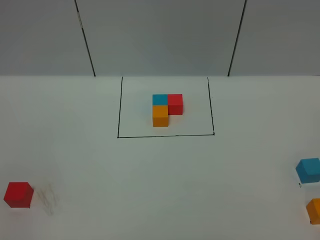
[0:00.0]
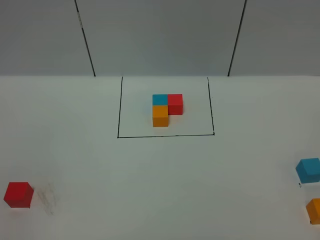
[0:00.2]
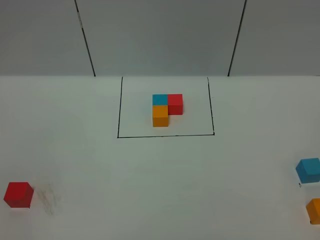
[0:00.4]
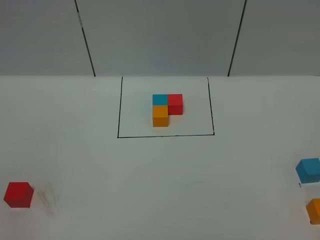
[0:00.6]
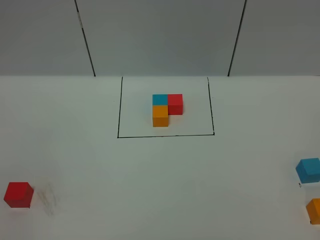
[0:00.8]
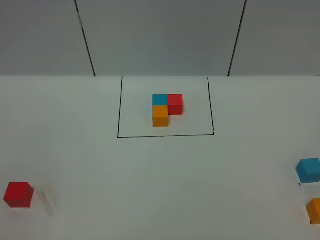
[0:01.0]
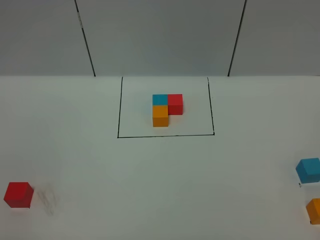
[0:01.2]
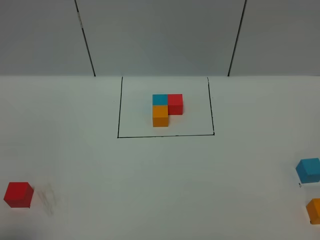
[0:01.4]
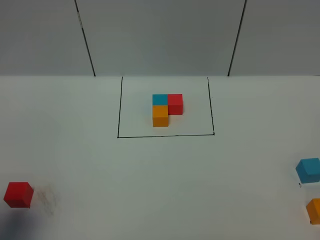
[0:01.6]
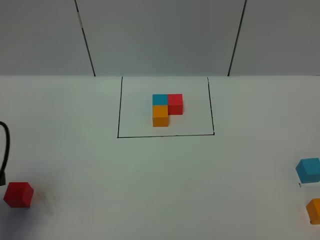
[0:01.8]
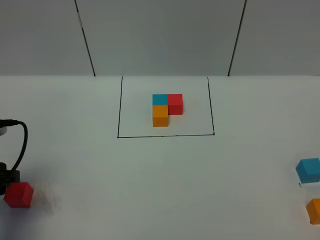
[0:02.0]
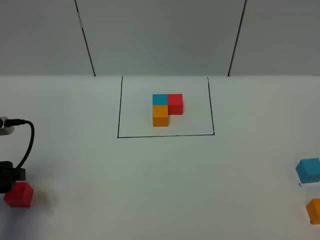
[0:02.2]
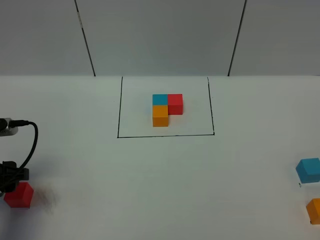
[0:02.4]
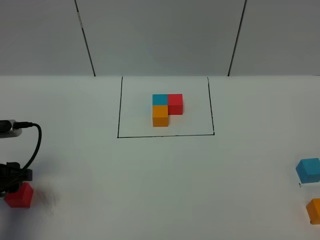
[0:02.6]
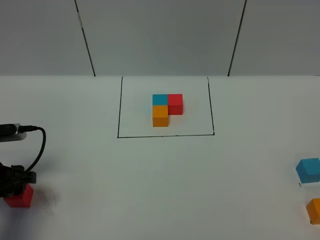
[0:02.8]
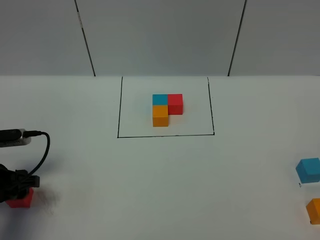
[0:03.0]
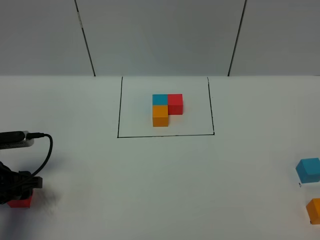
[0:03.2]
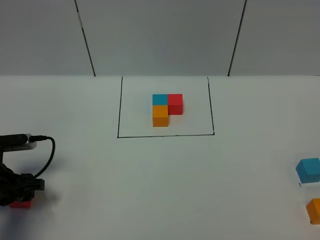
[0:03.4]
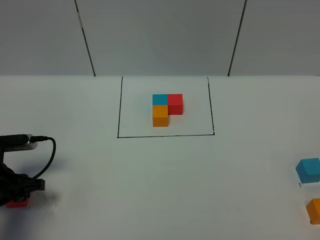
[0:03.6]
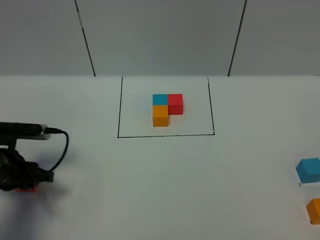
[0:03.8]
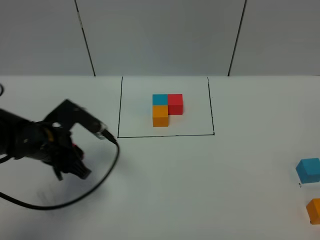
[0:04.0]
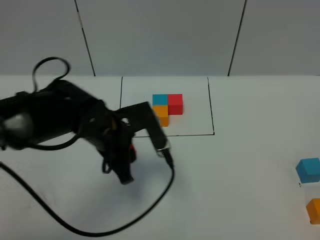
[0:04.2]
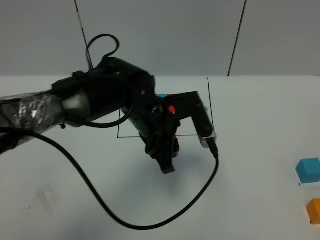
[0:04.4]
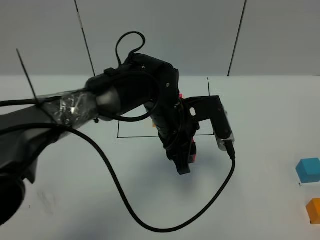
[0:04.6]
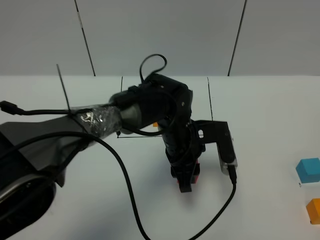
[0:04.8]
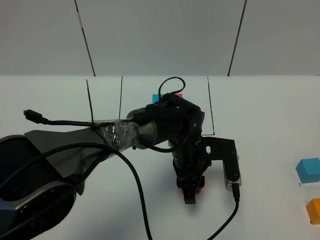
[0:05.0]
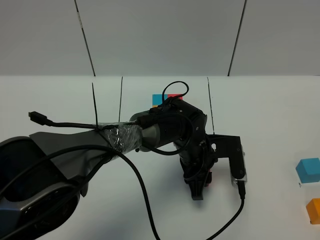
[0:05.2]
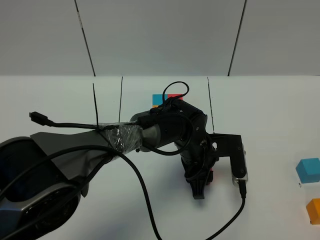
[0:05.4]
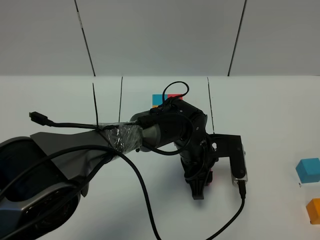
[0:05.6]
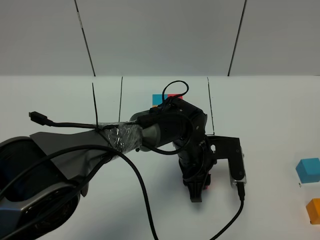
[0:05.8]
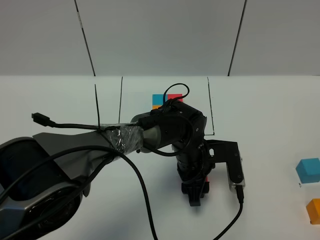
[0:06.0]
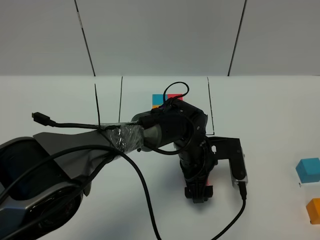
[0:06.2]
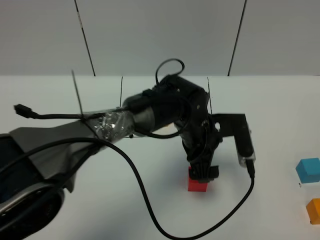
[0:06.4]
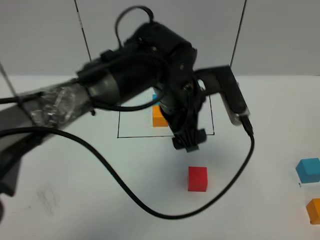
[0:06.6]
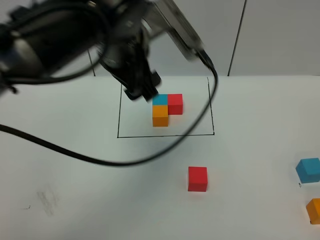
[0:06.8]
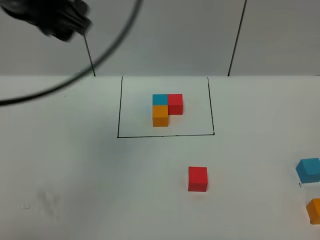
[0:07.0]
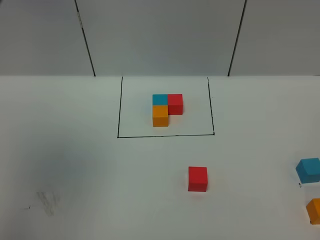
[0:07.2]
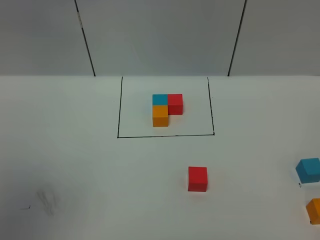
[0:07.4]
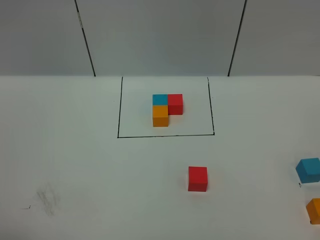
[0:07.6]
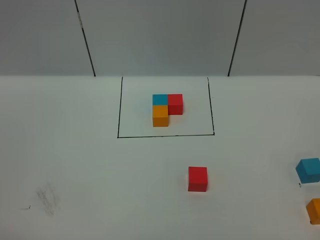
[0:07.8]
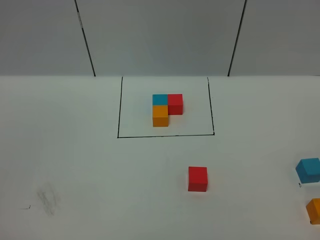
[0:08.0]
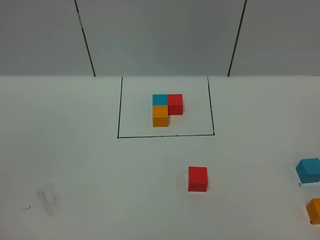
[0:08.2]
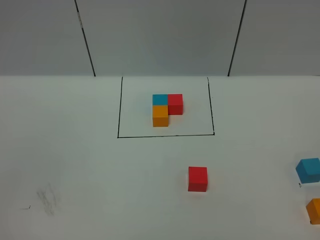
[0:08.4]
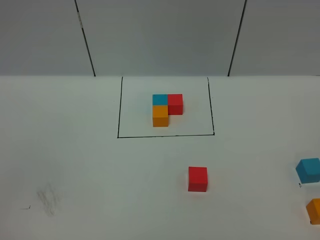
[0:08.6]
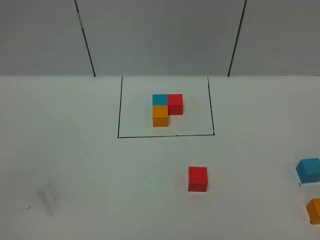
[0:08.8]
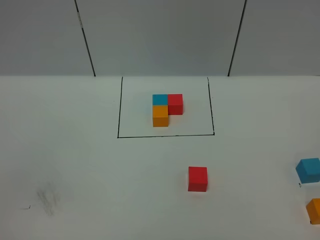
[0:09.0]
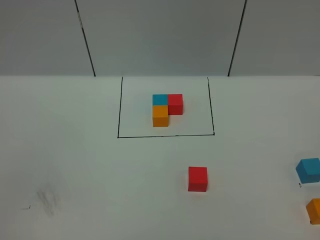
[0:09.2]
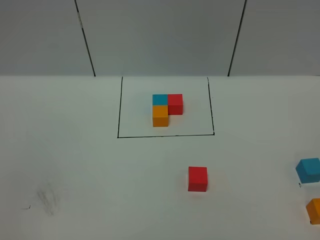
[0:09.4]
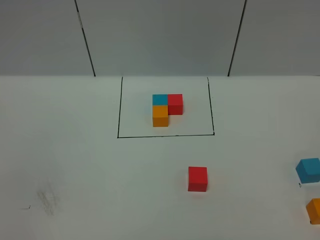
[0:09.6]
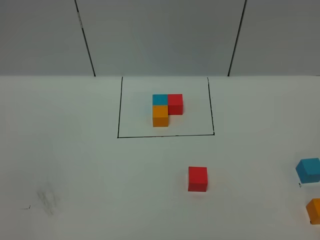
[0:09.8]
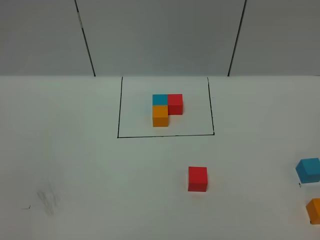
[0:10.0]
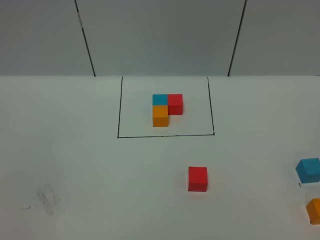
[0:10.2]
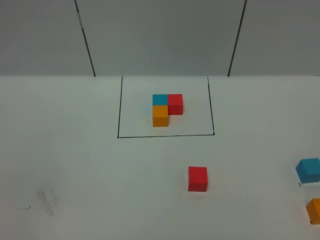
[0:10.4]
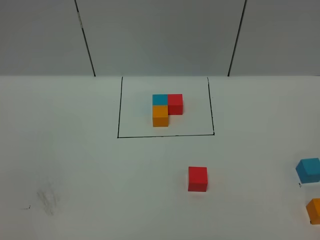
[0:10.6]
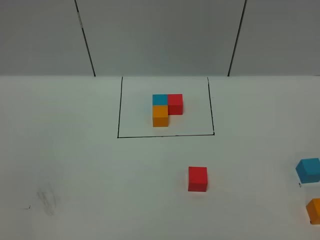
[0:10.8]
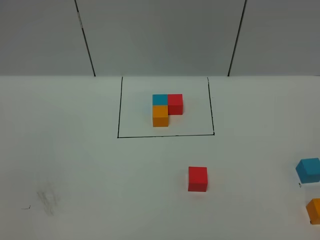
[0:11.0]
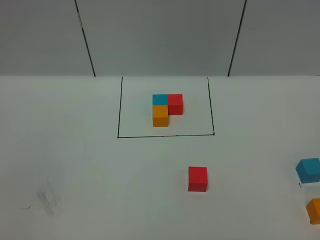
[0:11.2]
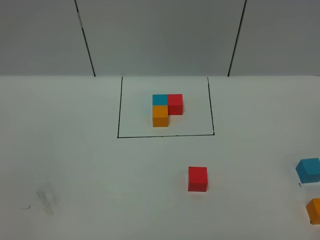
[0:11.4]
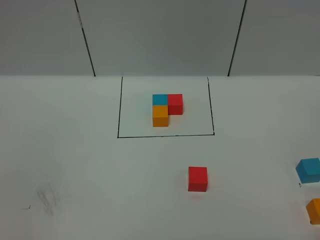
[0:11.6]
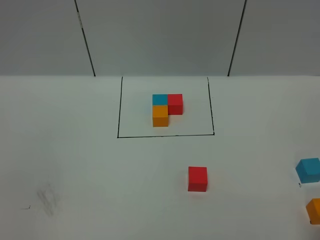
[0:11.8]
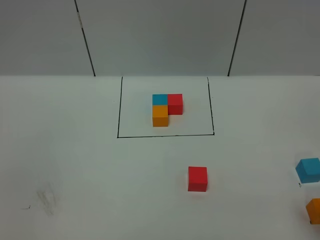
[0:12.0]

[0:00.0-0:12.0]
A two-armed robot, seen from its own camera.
Task of the whole recording: According to the building block template in front, assemble the scattered blocks together.
Step, 0:01.8 to 0:06.4: Put the red cube in the center of the table.
0:00.0 to 0:01.6: The left gripper is displaced forward by some 15 cm.
0:01.6 to 0:03.0: The left gripper is displaced downward and forward by about 20 cm.
0:03.0 to 0:04.4: The left gripper is displaced to the right by roughly 30 cm, and closes its fingers.
0:04.4 to 0:06.0: The left gripper moves downward and to the right, approximately 15 cm, and opens up.
0:06.0 to 0:07.6: The left gripper travels upward, to the left and backward by about 60 cm, and opens up.

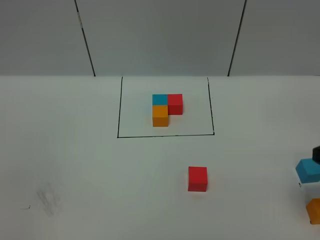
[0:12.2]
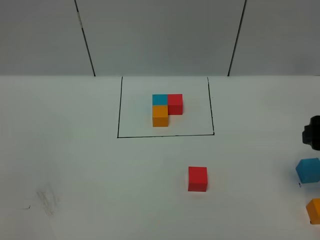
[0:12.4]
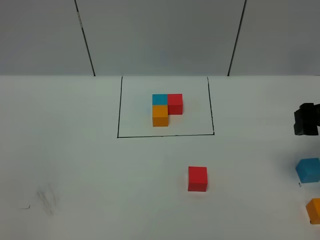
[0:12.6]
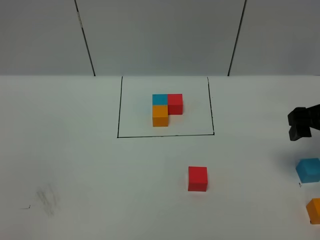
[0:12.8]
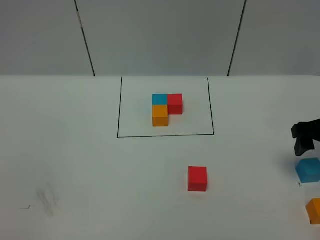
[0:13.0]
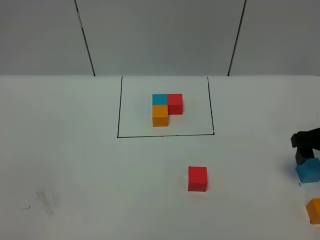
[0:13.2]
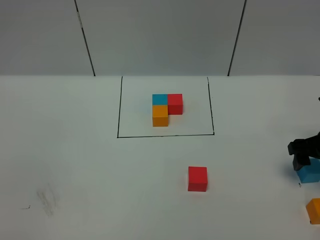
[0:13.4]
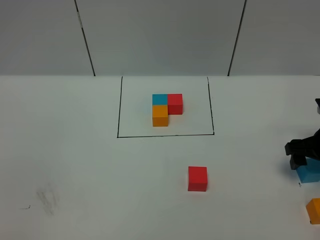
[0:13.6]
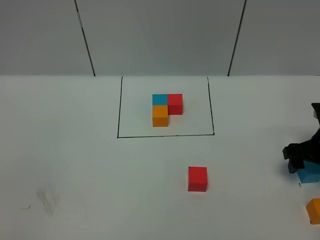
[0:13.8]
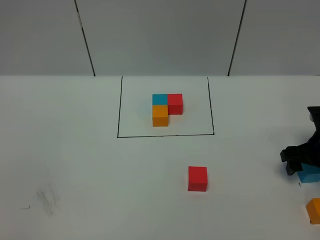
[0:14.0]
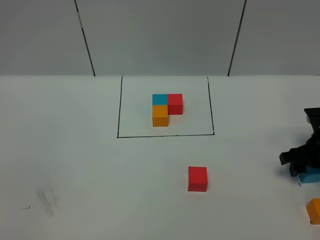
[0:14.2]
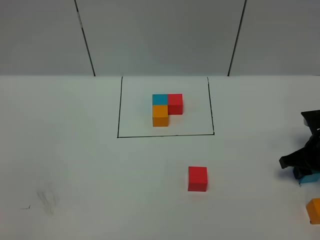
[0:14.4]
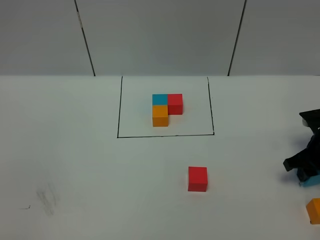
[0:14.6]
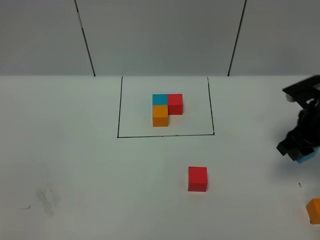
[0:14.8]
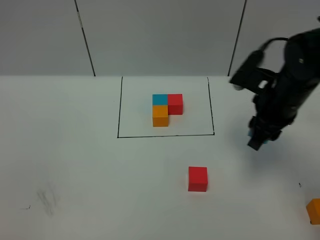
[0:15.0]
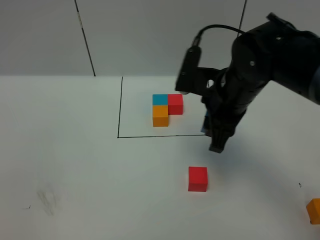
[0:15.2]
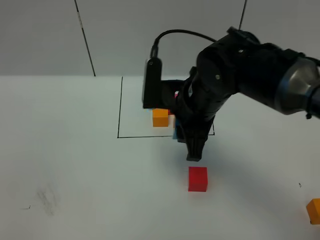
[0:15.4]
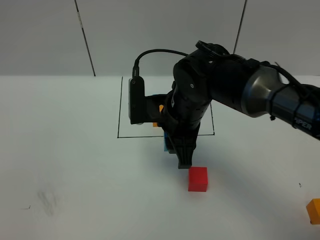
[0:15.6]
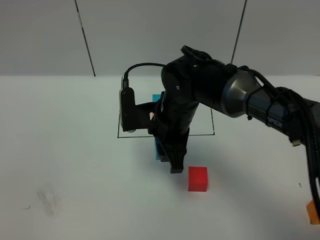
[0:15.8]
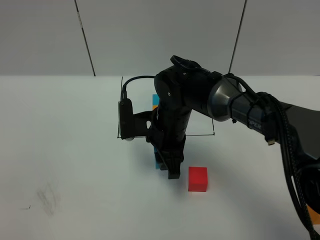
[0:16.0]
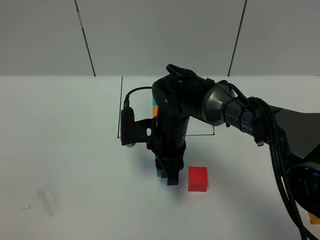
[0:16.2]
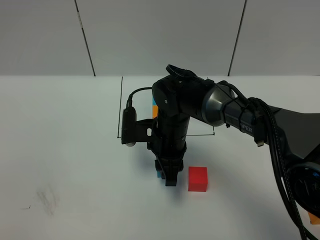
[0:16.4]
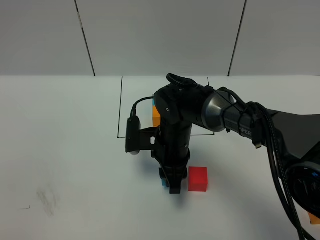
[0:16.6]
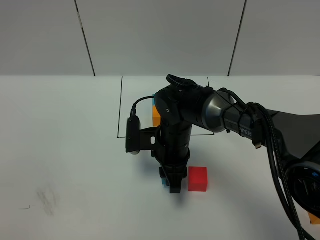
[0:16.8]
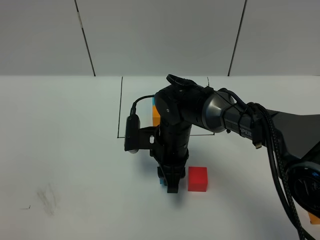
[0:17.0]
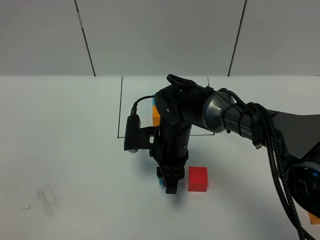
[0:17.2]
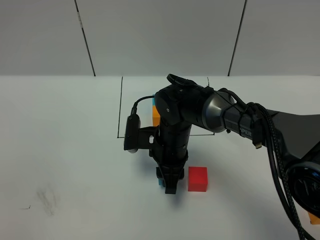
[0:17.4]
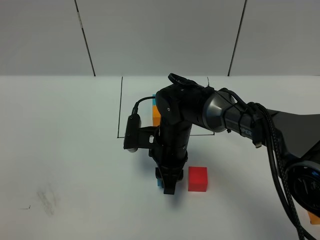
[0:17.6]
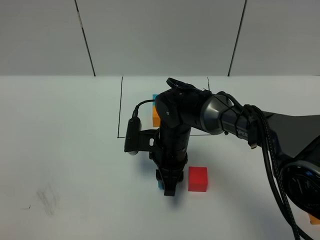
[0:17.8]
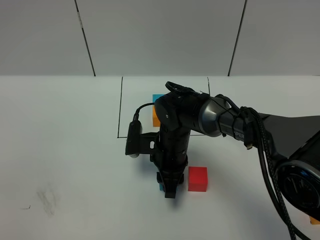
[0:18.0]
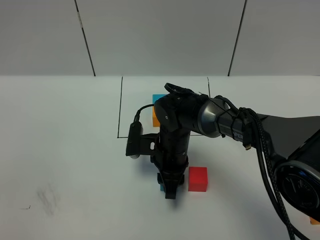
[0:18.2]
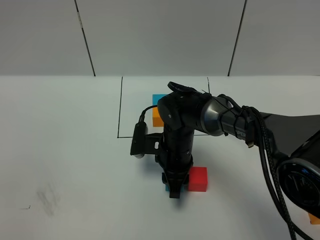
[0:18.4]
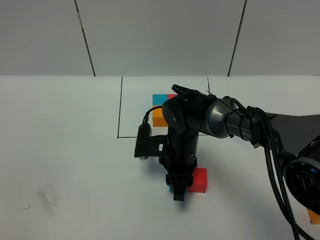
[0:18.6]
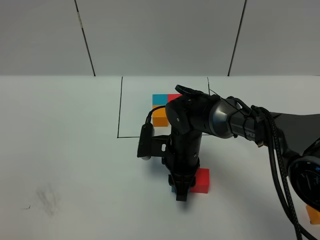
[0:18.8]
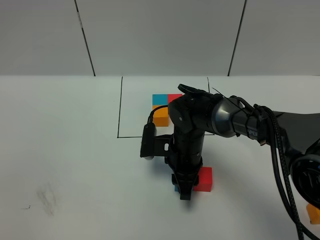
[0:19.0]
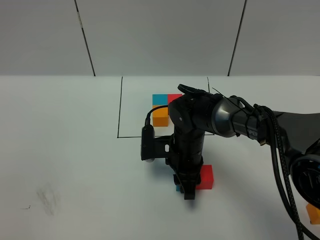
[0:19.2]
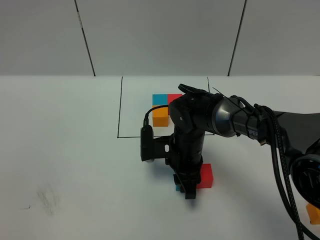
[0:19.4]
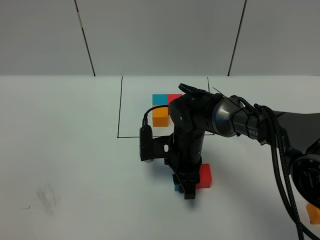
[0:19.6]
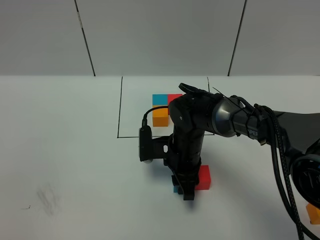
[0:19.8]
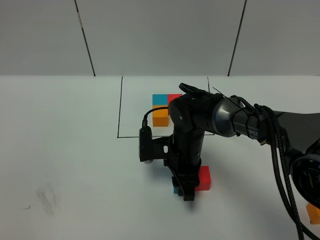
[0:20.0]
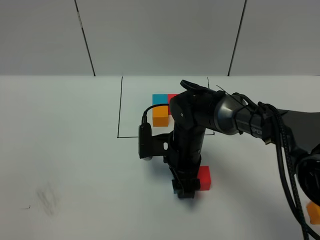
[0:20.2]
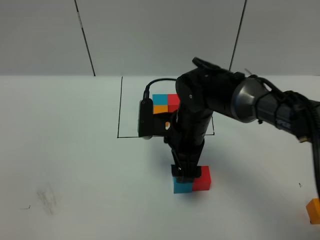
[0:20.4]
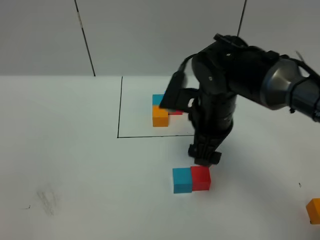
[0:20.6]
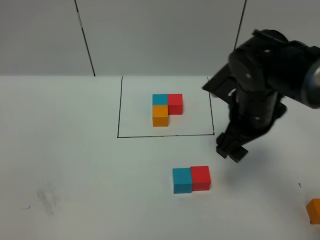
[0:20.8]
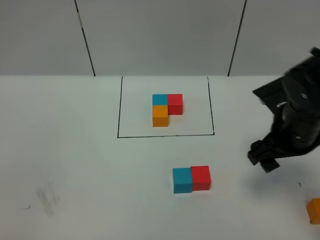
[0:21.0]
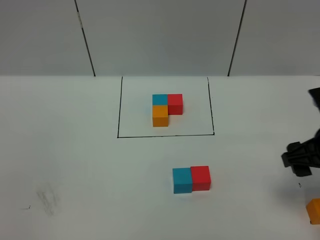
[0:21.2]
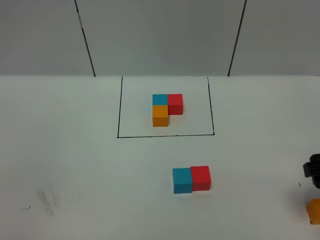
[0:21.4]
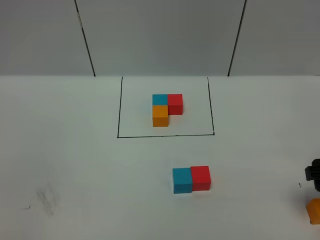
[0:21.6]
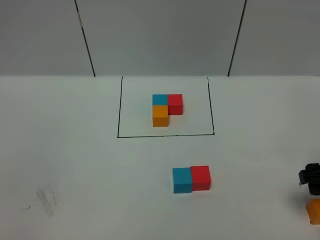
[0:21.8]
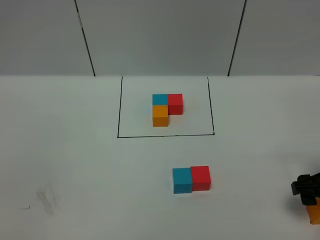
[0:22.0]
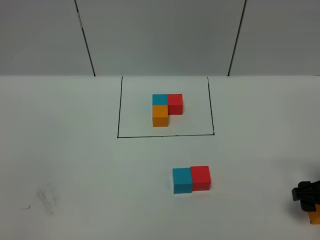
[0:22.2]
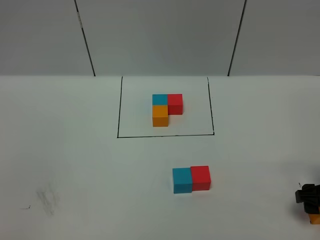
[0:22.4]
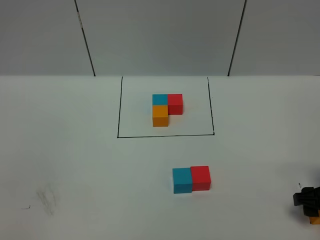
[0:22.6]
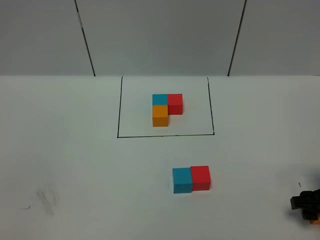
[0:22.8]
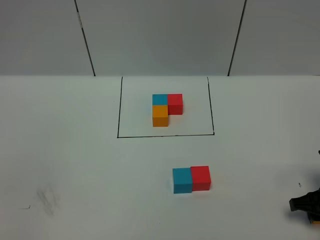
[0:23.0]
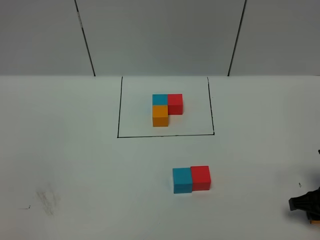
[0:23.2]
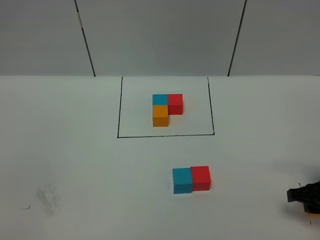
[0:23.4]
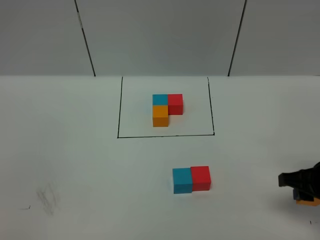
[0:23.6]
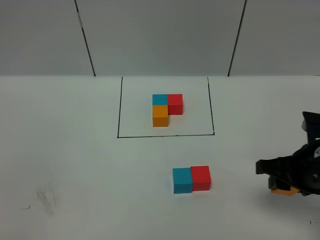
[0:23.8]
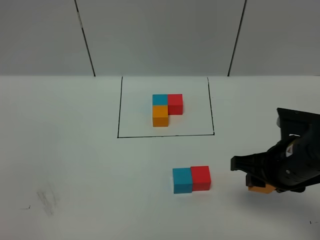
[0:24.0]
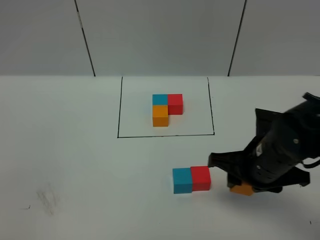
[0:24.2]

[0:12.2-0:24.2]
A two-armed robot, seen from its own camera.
Task of the whole recording: According to the building block template in front, assemble the scattered blocks together.
0:12.2 to 0:13.8: The right gripper is displaced forward and downward by some 20 cm.
0:13.8 to 0:15.2: The right gripper is displaced to the left and upward by some 25 cm, and closes up.
0:15.2 to 0:16.6: The right gripper heads downward and to the left, covering some 15 cm.
0:16.6 to 0:19.8: The grippers make only small movements.
0:19.8 to 0:21.2: The right gripper shifts roughly 30 cm to the right, upward and backward, and opens up.
0:21.2 to 0:22.6: The right gripper goes roughly 10 cm downward.
0:22.6 to 0:24.2: The right gripper moves to the left and upward, approximately 20 cm, and closes.
